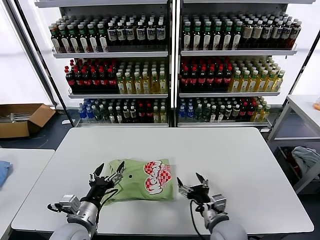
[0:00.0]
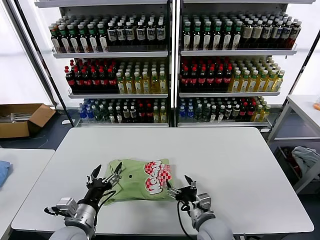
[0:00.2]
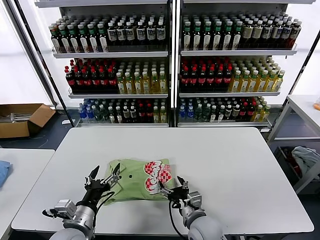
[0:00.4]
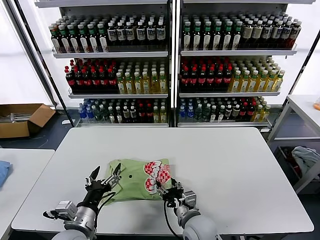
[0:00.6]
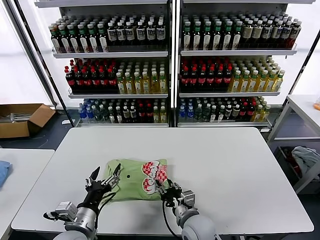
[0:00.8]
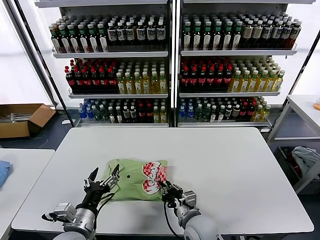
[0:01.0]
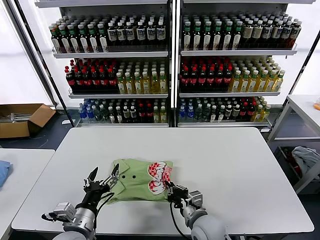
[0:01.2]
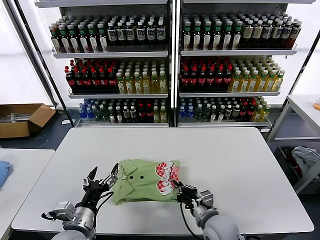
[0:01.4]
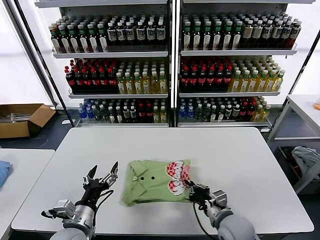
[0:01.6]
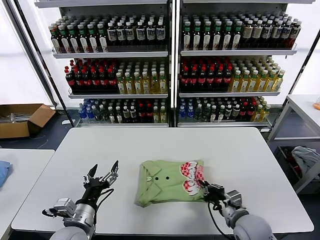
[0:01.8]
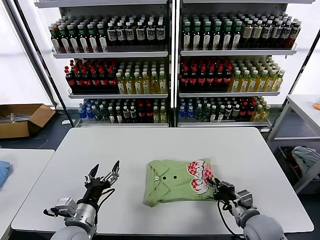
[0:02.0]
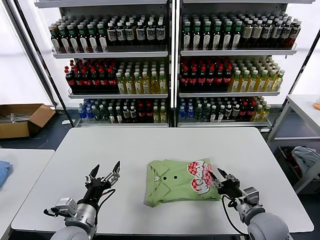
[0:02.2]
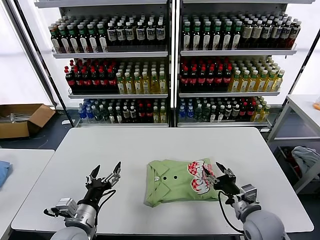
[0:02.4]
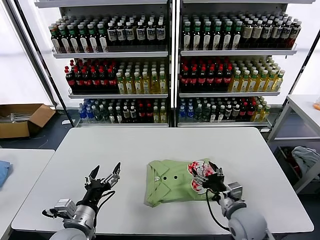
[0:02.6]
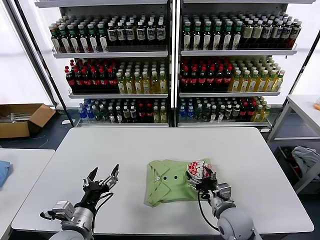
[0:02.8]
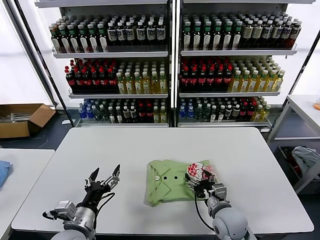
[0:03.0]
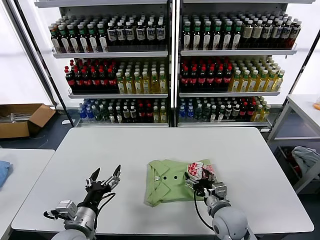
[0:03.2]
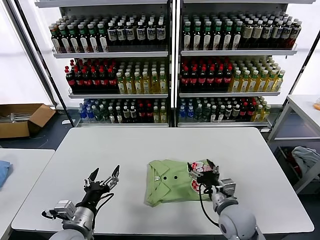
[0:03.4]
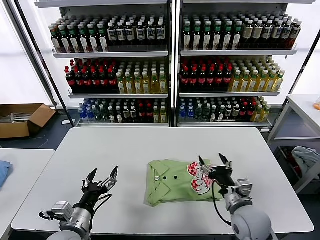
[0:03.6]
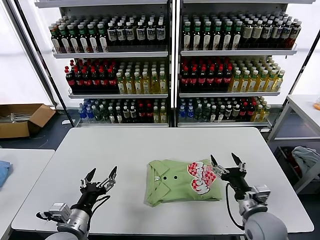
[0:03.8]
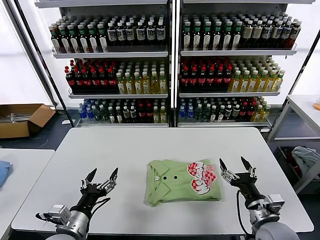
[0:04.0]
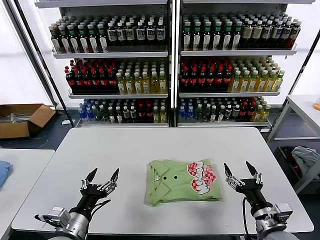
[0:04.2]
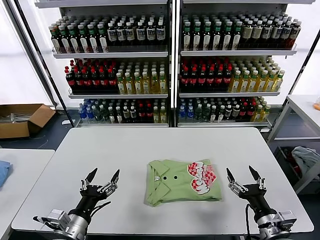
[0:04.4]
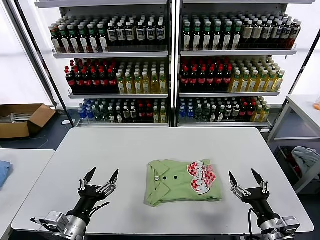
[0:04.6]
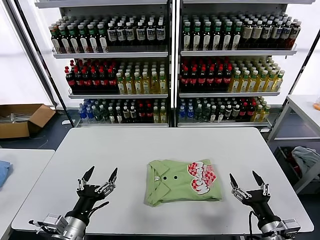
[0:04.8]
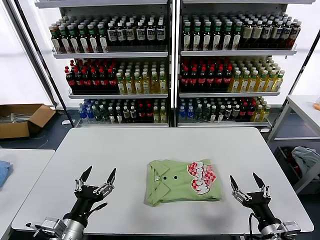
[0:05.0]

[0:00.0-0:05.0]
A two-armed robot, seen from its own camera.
Task of the whole recording: fold and organize the clothes.
Step, 0:00.0 to 0:03.4: Drag the clothes to the center of the table.
0:00.0 to 0:01.6: The right gripper reaches roughly 10 cm to the left, then returns, and closes.
0:01.6 to 0:03.4: The right gripper reaches roughly 10 cm to the right, then returns, and opens up.
0:03.4 to 0:05.0: The right gripper is displaced to the right and backward by roughly 15 cm.
